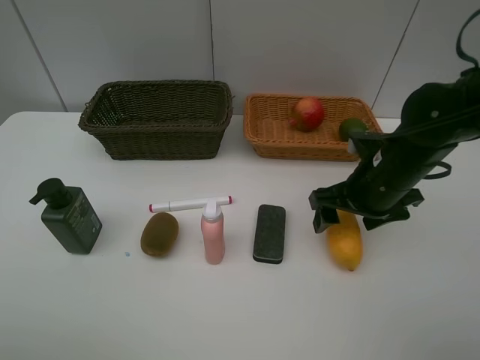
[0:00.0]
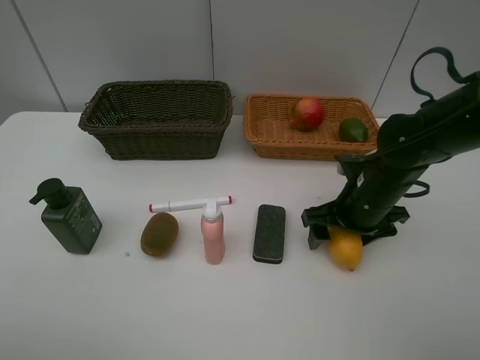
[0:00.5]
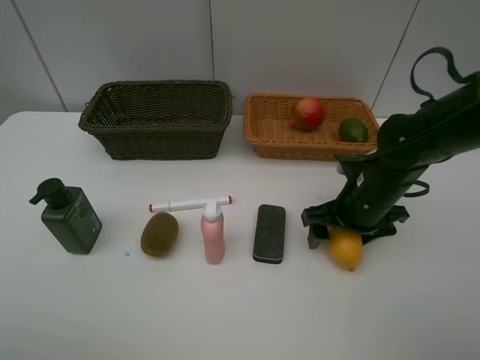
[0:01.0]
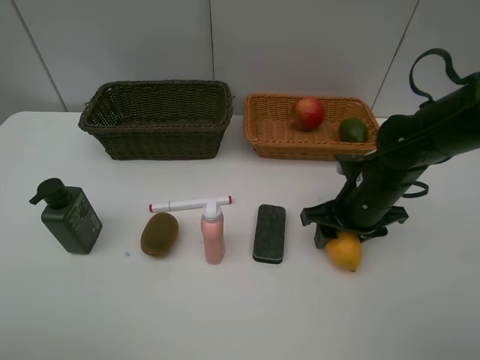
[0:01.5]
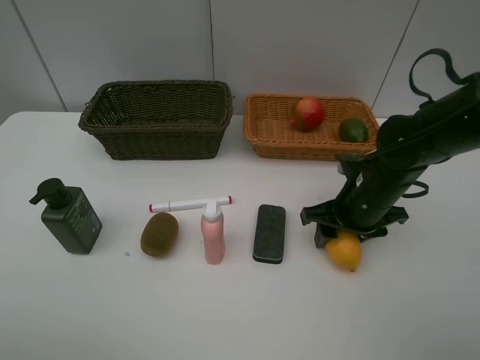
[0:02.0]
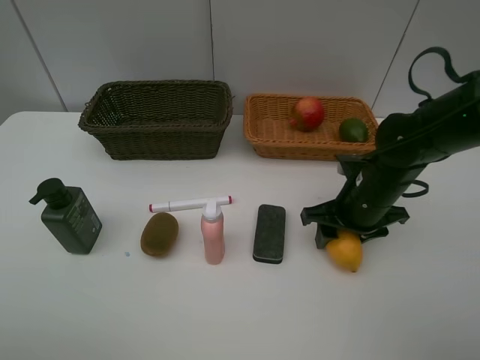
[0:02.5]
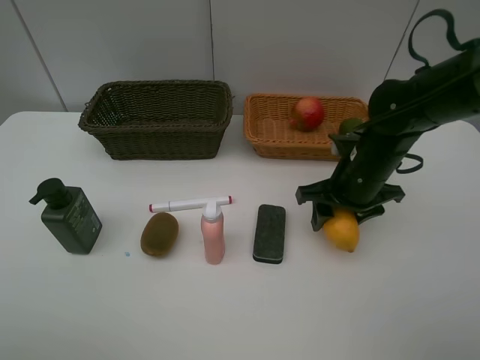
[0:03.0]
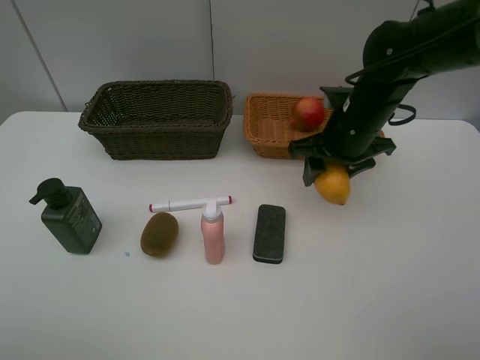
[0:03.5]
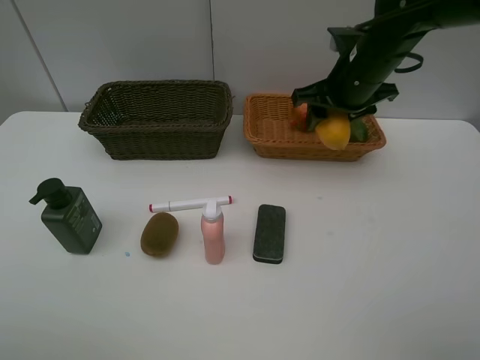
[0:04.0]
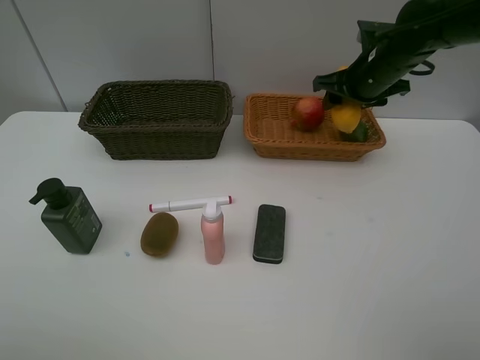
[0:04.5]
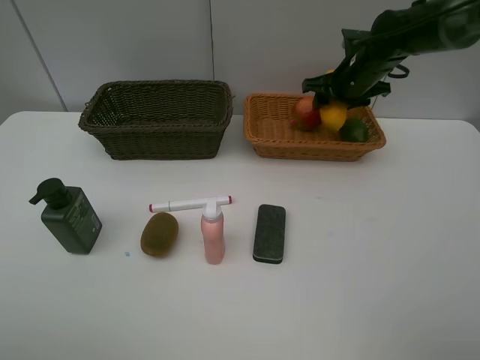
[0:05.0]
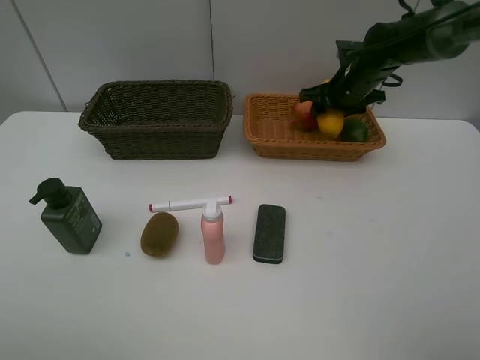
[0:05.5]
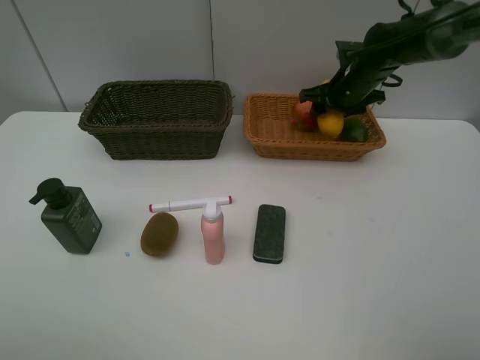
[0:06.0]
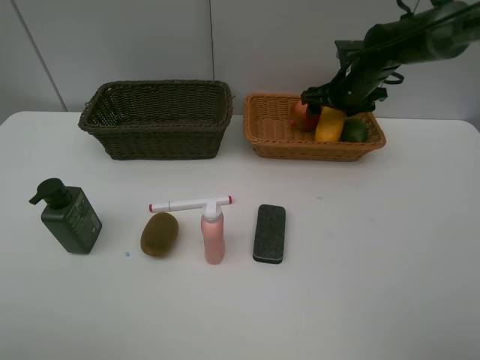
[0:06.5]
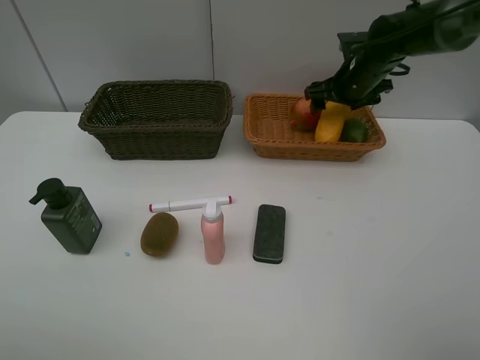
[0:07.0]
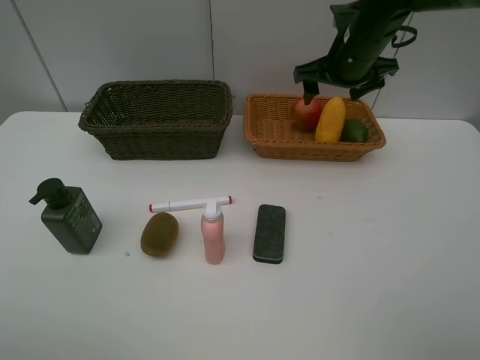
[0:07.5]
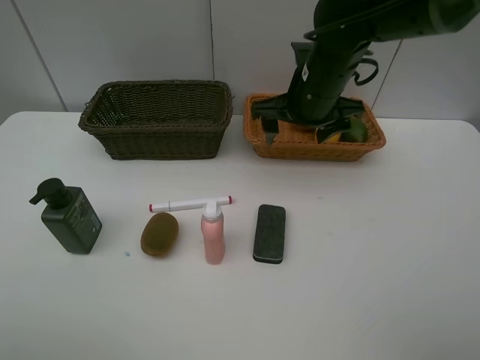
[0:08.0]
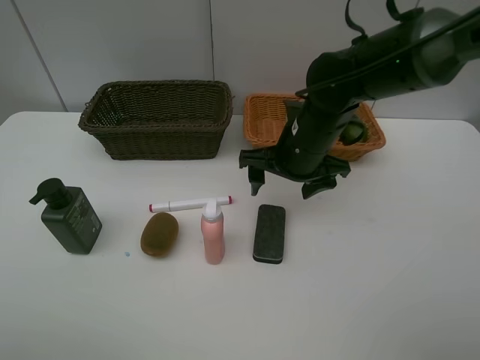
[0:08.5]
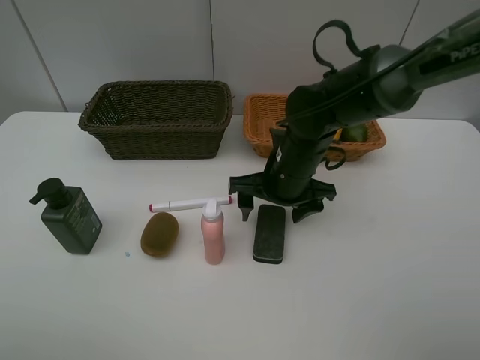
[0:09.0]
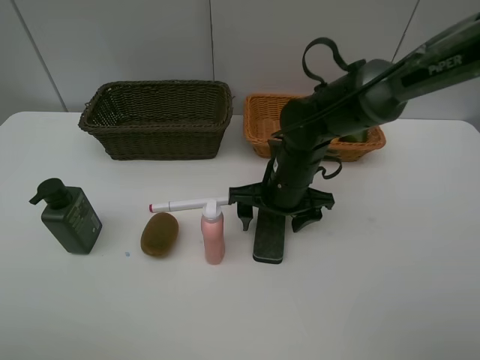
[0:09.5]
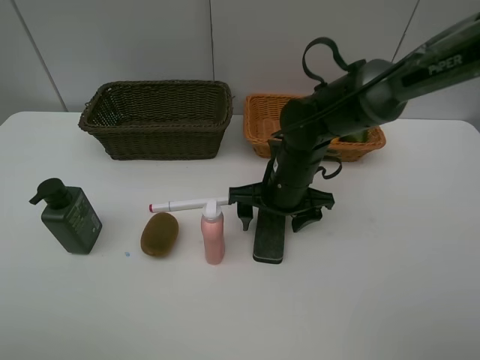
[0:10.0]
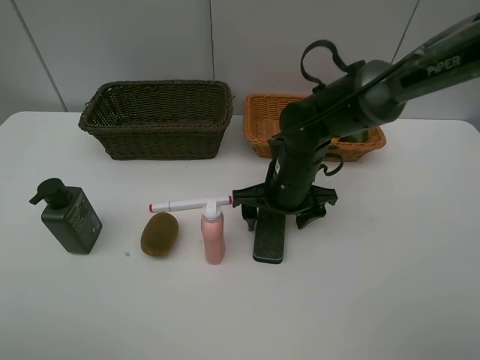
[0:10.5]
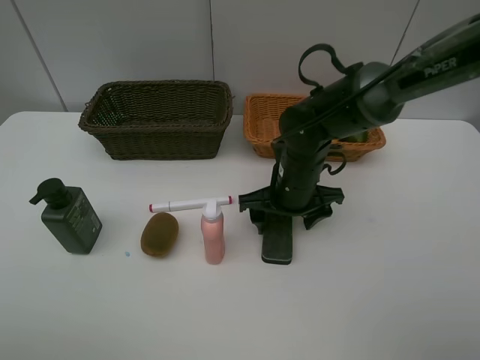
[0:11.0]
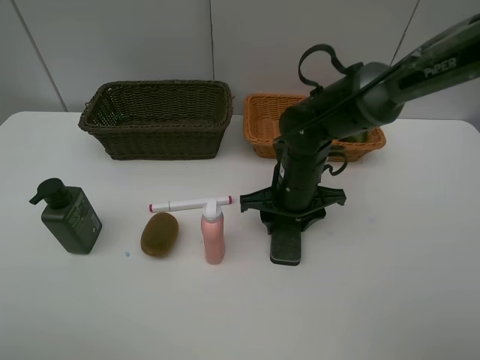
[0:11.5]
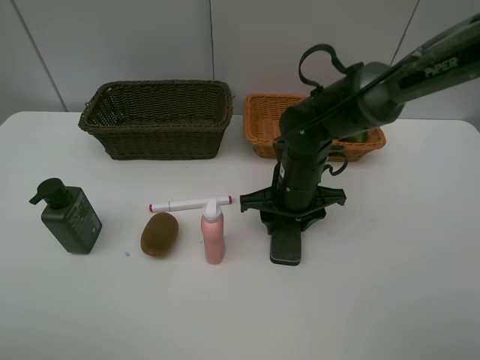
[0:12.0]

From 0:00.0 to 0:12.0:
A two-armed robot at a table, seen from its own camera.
Task of the whole recording: Place multiple objects separately in different baskets.
Step, from 0:00.0 to 0:02.5: Pick up the mango with right gripper.
Step, from 0:03.0 to 0:07.5: Place the mango in the light basket with right gripper.
From 0:00.0 to 0:02.0: The right gripper closes its fingers.
From 0:02.0 to 0:04.0: The right gripper travels upward and forward by roughly 15 cm.
From 0:04.0 to 0:06.0: The right gripper heads forward and downward, covering some 10 cm.
From 0:06.0 to 0:08.0: The right gripper travels backward and to the left by some 15 cm, and opens up.
From 0:08.0 to 0:10.0: The right gripper travels downward by some 10 cm.
From 0:10.0 to 0:12.0: The right gripper closes.

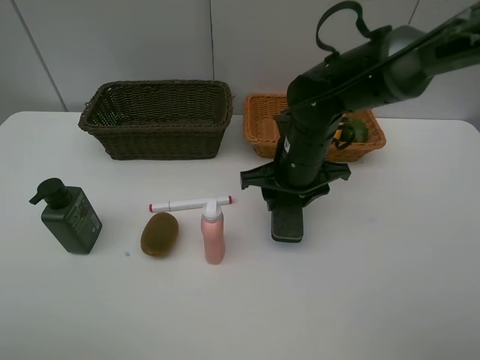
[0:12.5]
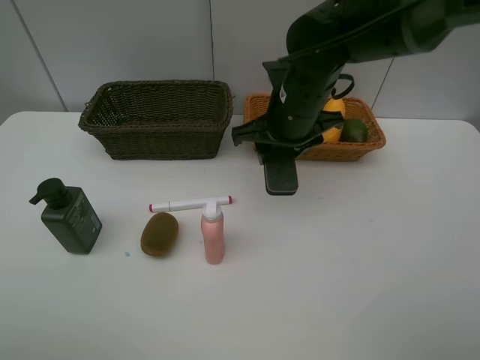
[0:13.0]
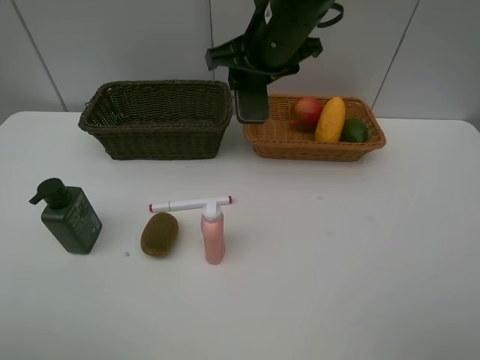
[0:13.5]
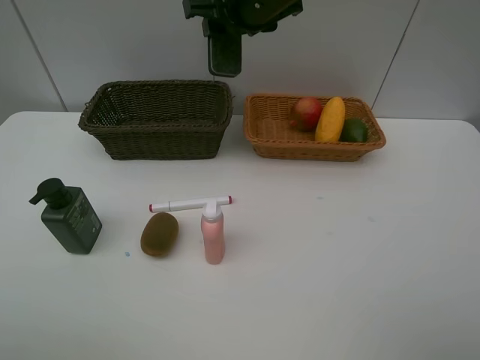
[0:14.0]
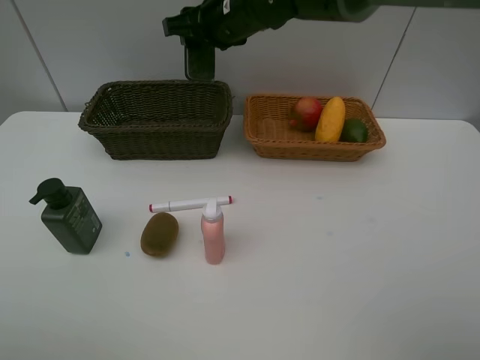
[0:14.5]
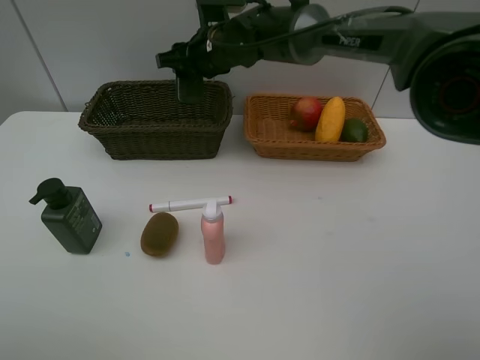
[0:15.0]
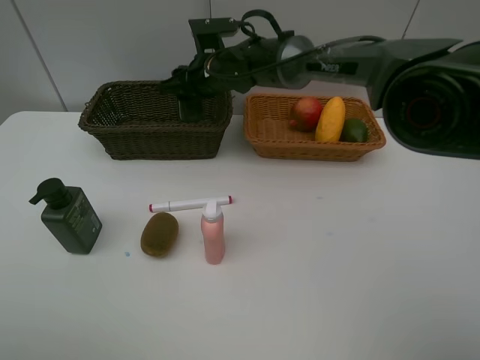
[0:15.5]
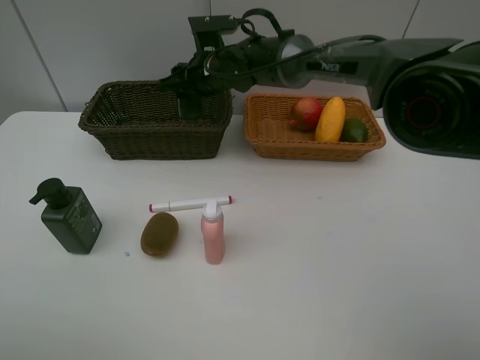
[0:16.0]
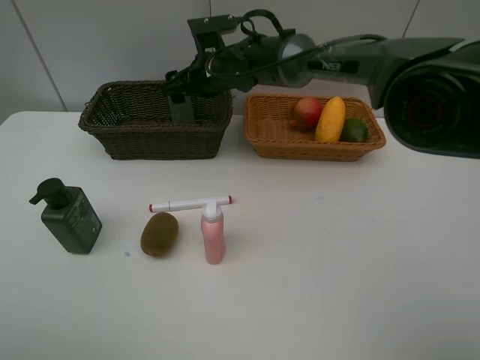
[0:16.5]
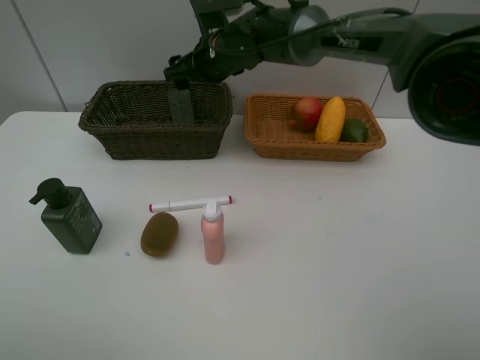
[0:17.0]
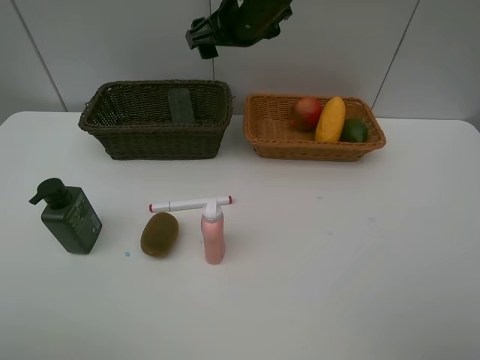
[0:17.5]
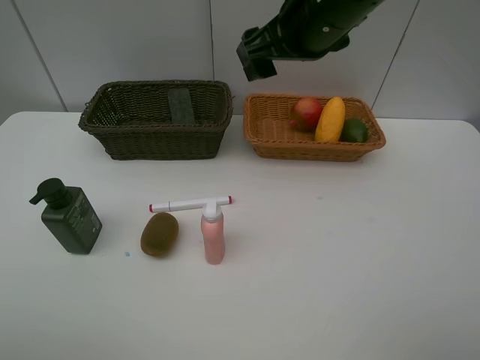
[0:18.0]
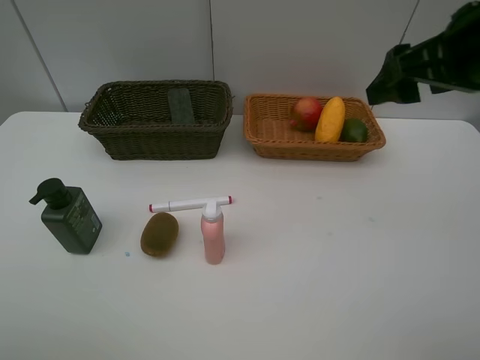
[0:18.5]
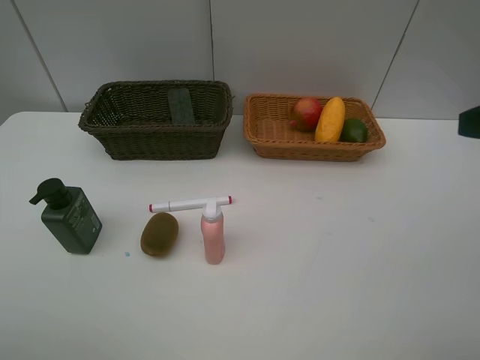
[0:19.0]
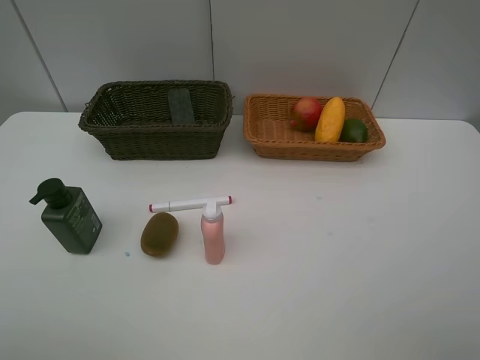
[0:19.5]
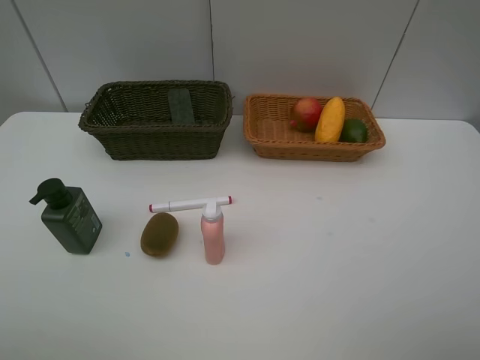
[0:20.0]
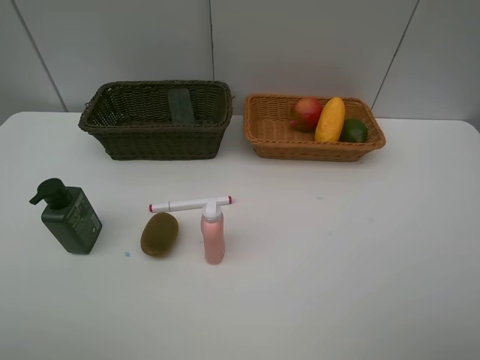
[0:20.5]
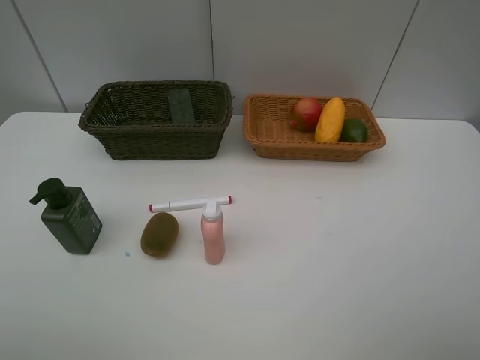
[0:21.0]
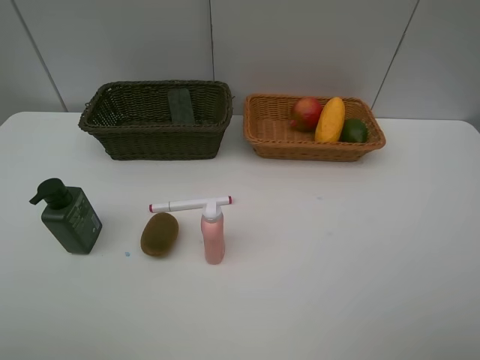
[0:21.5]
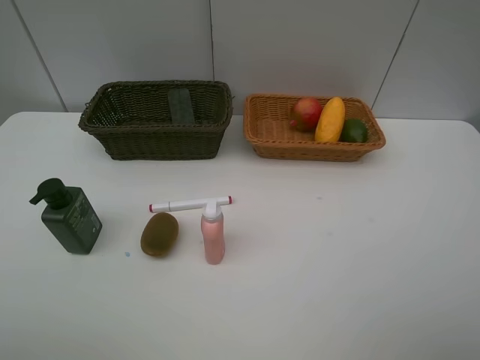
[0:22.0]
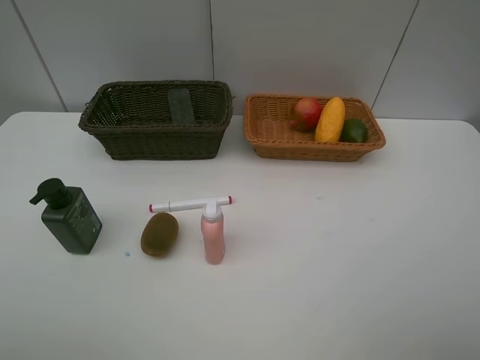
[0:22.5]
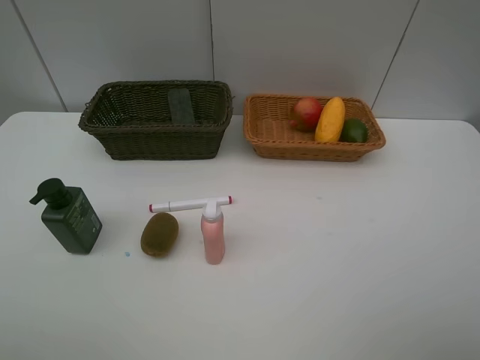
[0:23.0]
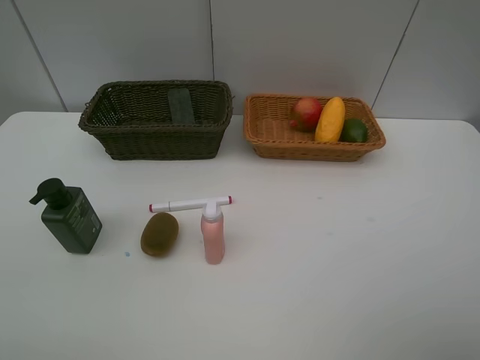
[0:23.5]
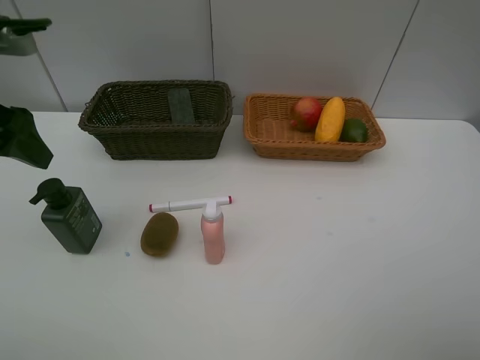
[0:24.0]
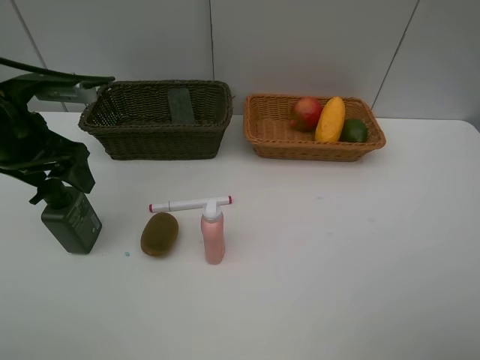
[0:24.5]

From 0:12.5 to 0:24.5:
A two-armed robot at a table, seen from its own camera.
Task of the whole recording: Place multiple objects separately in different baskets.
Step, from 0:13.0 to 0:17.0: Place the blackboard eraser in the dark basket with right gripper.
From 0:12.5 to 0:14.5: The right gripper moves upward, forward and to the left, approximately 20 cm.
From 0:14.5 to 0:16.5: The right gripper moves downward, about 10 cm, and opens its fingers.
From 0:16.5 to 0:18.5: The right gripper goes roughly 40 cm to the right, backward and upward.
From 0:18.5 to 0:20.5: The right gripper is displaced backward by some 25 cm.
From 0:20.5 to 0:22.5: The two grippers keep their place.
From 0:22.5 to 0:24.5: The left gripper shifts some 30 cm forward.

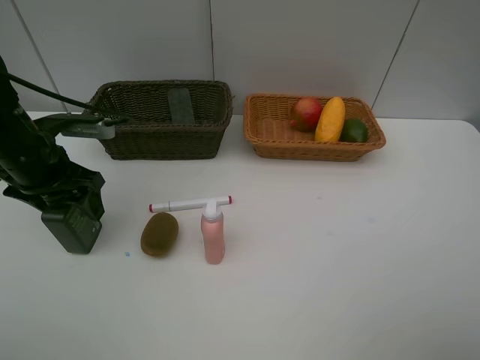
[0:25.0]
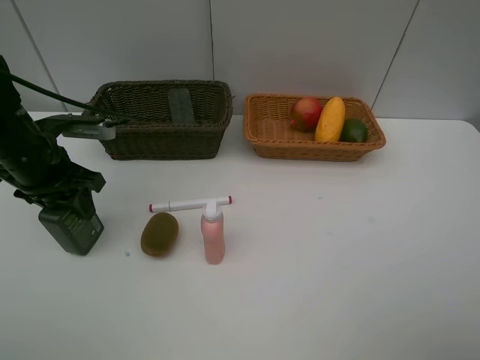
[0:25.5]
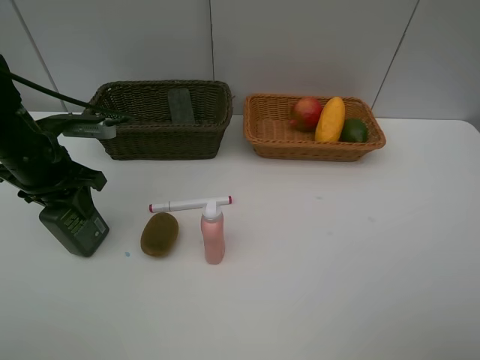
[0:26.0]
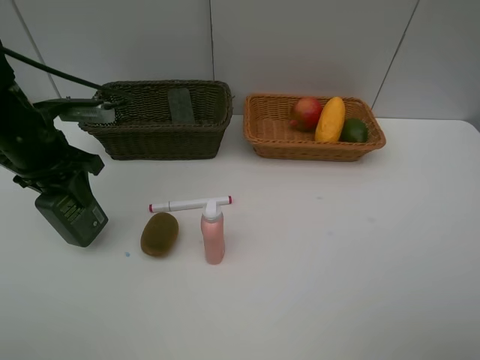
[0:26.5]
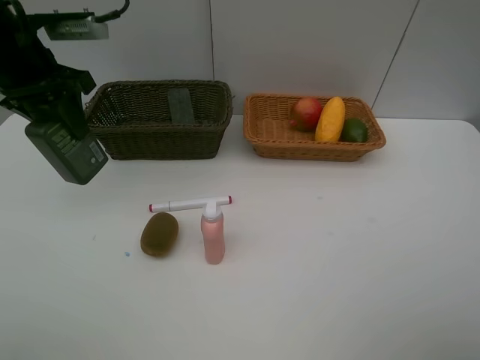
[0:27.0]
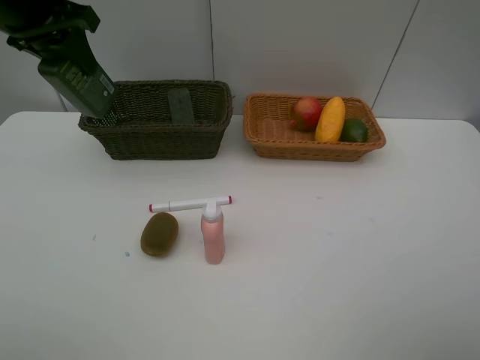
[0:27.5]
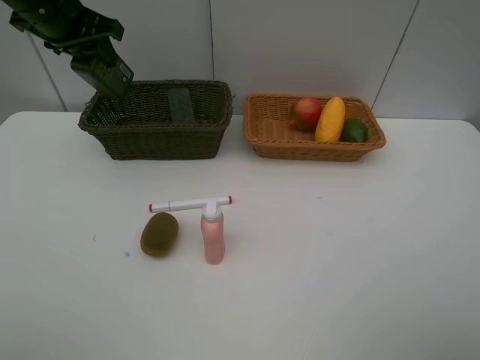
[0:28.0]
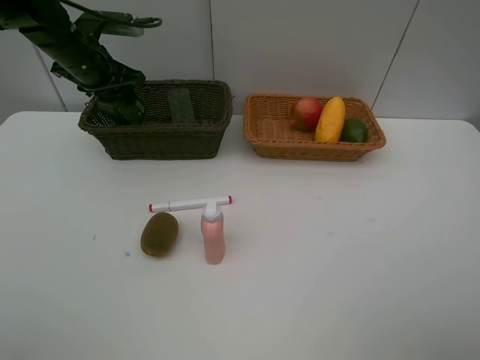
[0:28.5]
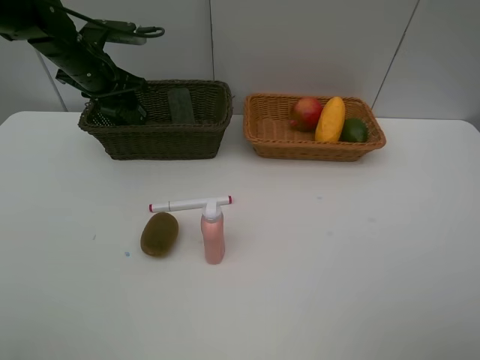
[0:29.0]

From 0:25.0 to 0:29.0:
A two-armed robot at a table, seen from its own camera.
Task of the whole recording: Place multiple objects separately in different baskets.
From 0:25.0 to 0:27.0: The left gripper heads upward, covering approximately 10 cm, and closes up.
From 0:27.0 to 0:29.0: The left gripper travels forward and downward by about 15 cm.
